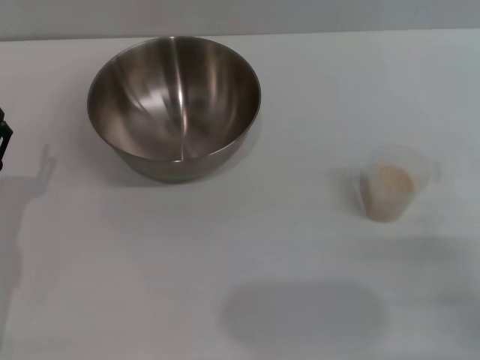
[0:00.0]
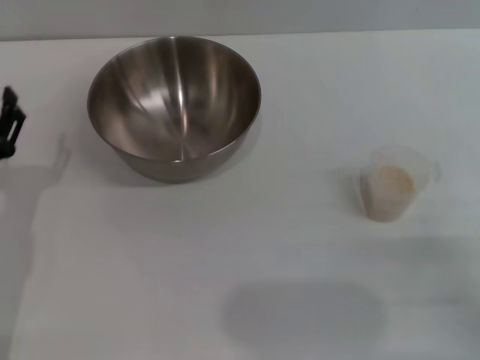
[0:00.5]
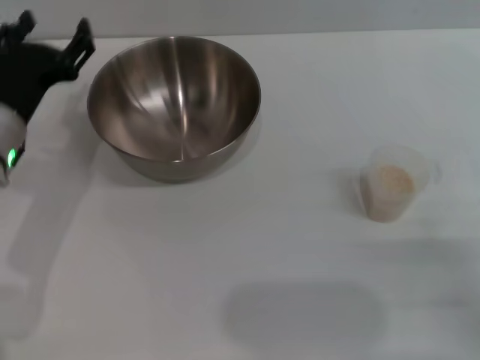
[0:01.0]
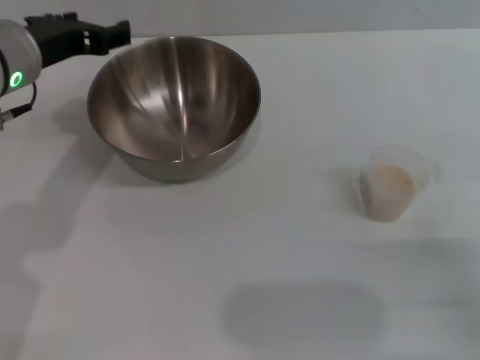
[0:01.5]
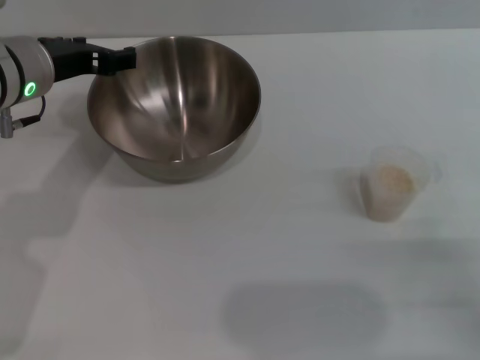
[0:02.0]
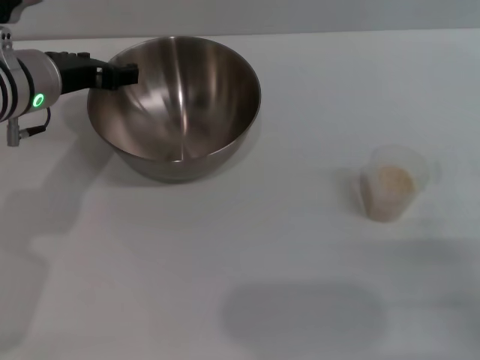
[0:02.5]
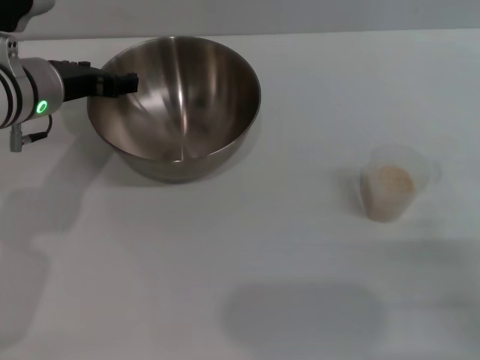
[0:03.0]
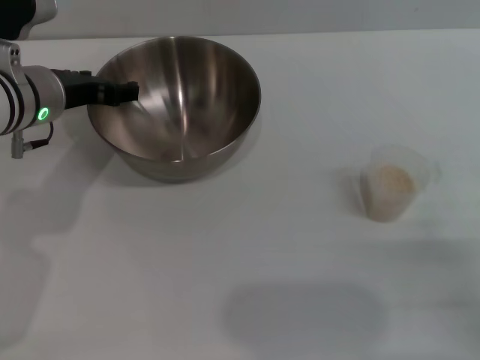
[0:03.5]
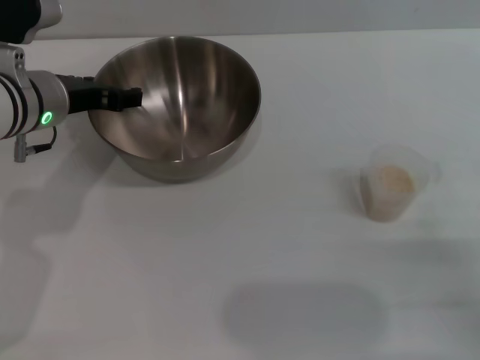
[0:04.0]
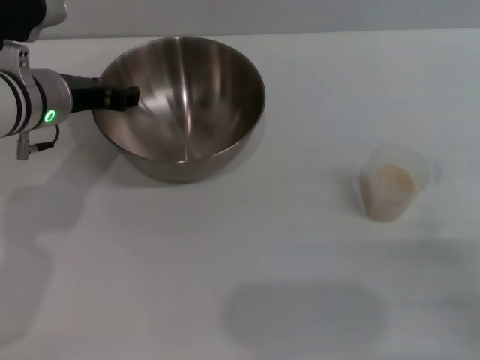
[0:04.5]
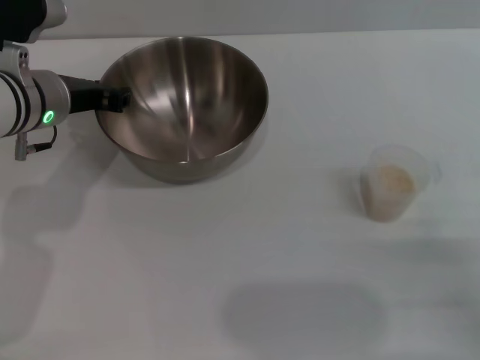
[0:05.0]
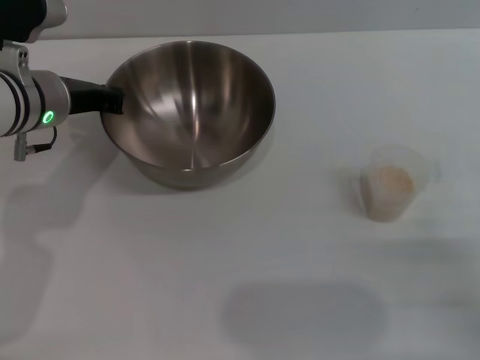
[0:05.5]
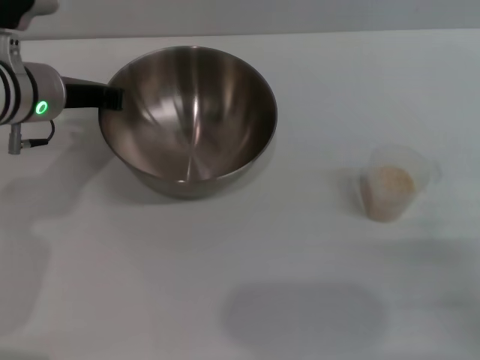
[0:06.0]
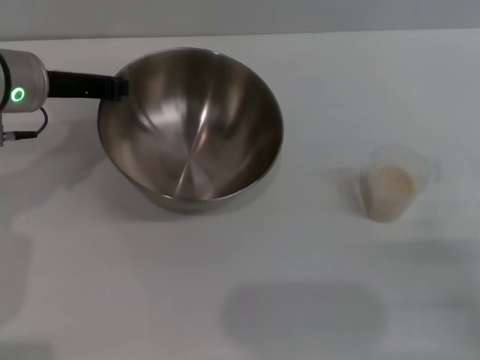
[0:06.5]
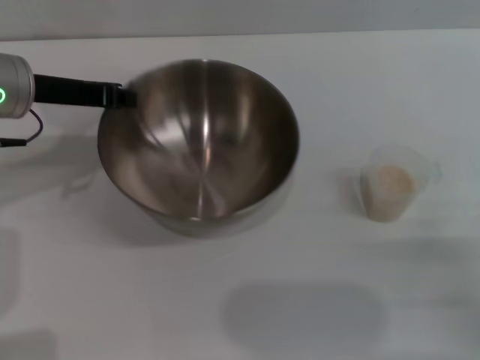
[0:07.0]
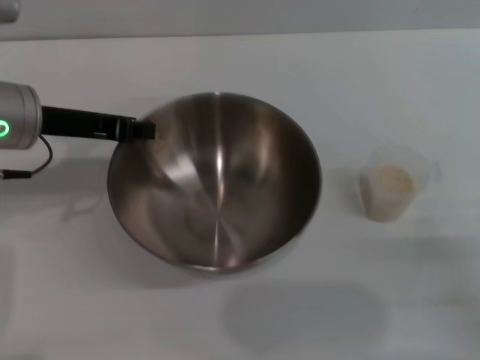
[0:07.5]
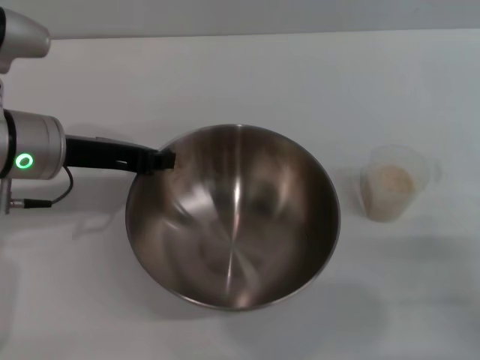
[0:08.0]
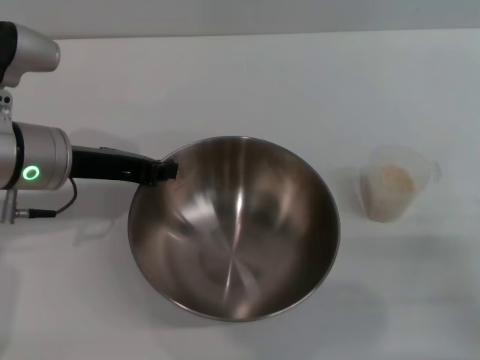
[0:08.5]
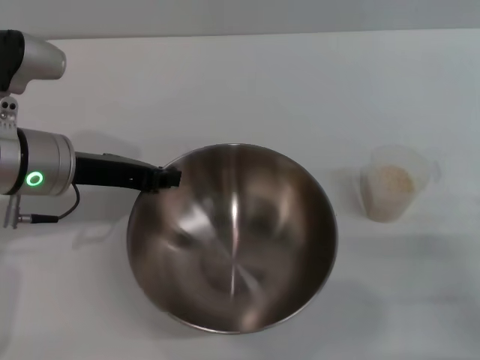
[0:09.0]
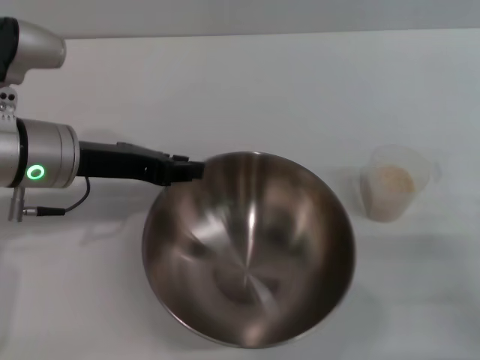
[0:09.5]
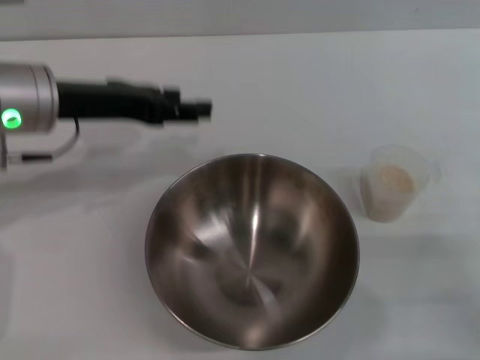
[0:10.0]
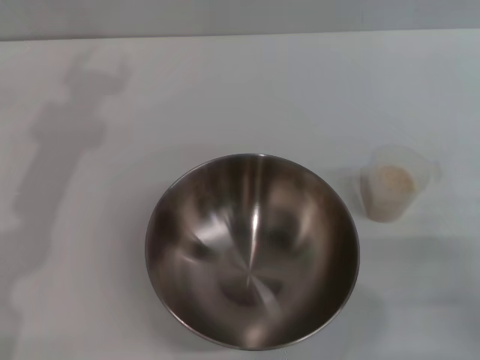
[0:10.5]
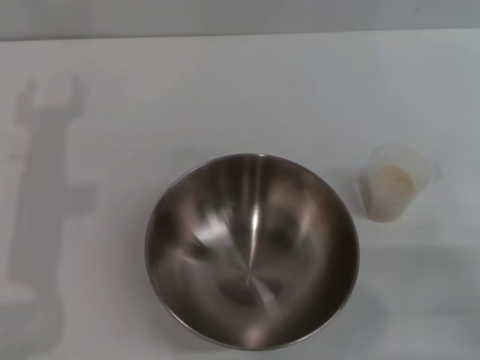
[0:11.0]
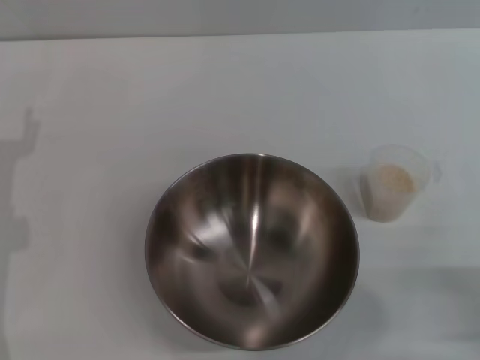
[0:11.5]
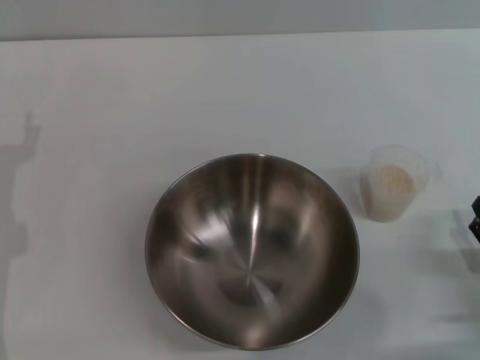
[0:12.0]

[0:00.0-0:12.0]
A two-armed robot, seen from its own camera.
Task of the whole recording: Place the bowl in the middle of the table with one hand and pour the rice from the grain cup into it with the other hand.
Step, 0.0 to 6.5 s: Pick up the bowl with the left gripper.
Step, 7.5 to 9.5 s: Place the bowl in the center of view with the left gripper.
0.0 to 2.0 s: The left gripper moves upward, forward and to the right, approximately 20 cm.
2.0 to 4.0 s: The grippers make only small movements.
4.0 to 6.0 s: The left gripper closes its fingers.
6.0 to 8.0 s: The left gripper is displaced backward by roughly 5 cm.
8.0 to 10.0 s: The left gripper opens up.
10.0 to 12.0 s: The left gripper goes approximately 15 cm downward, to the left and backward, and opens its fingers.

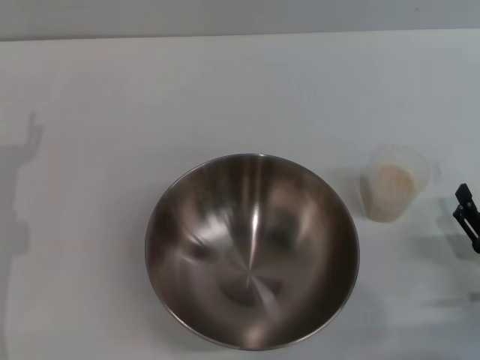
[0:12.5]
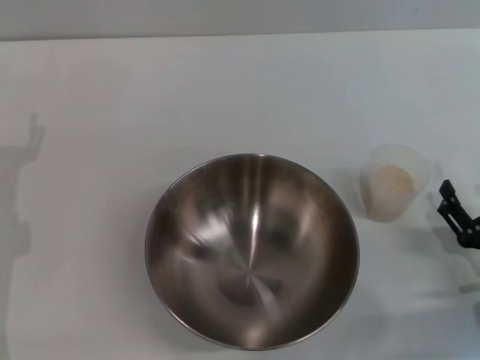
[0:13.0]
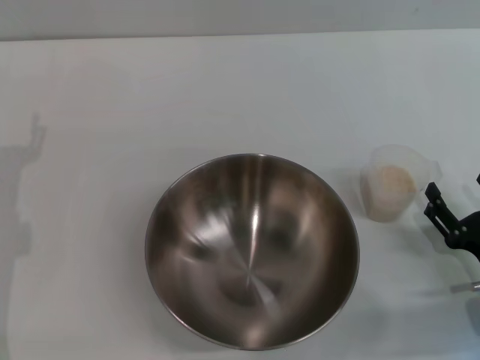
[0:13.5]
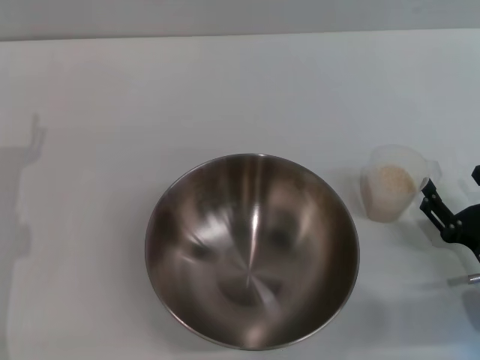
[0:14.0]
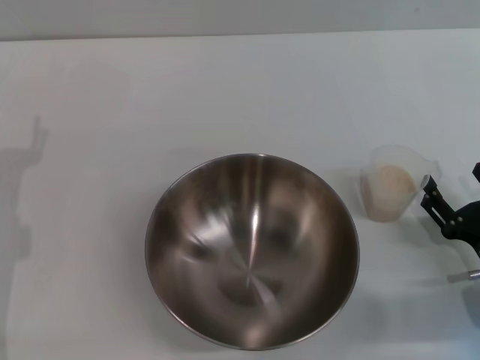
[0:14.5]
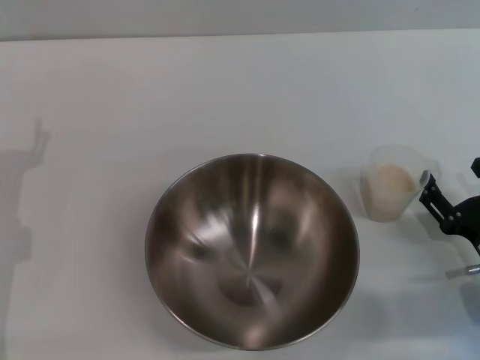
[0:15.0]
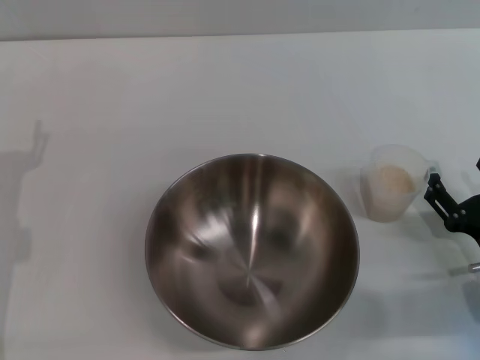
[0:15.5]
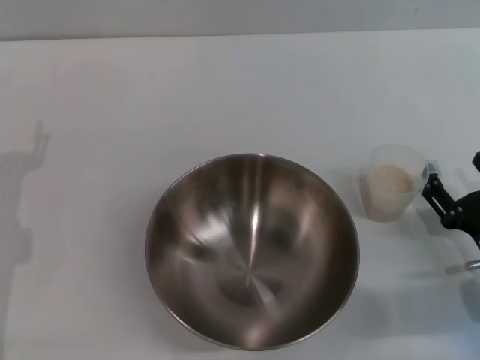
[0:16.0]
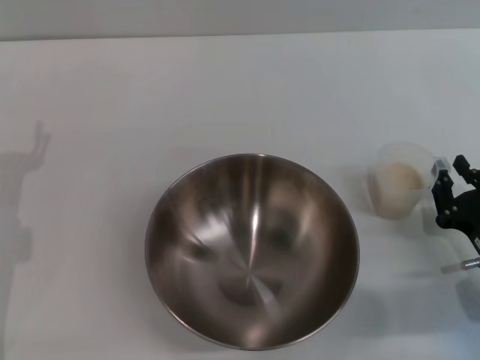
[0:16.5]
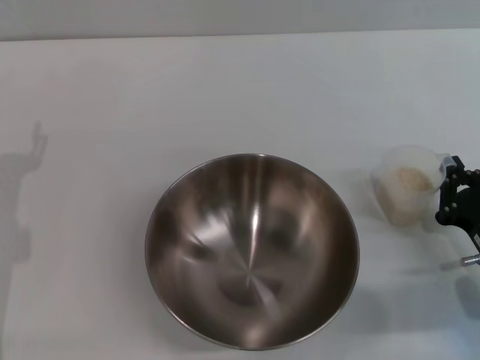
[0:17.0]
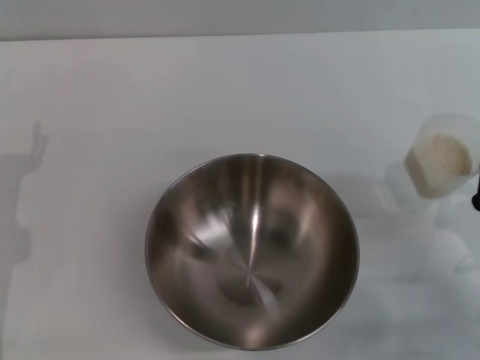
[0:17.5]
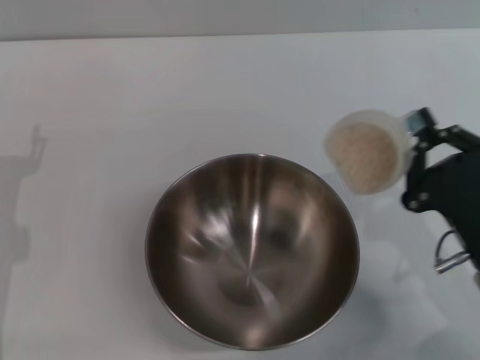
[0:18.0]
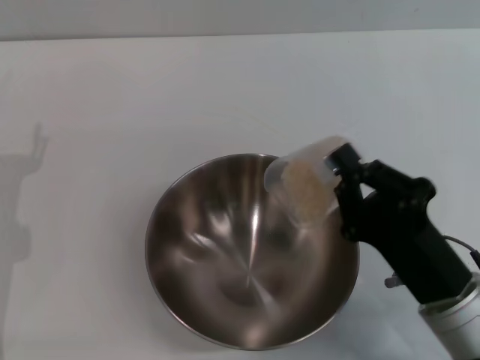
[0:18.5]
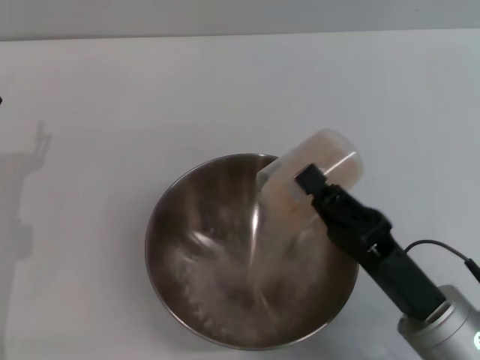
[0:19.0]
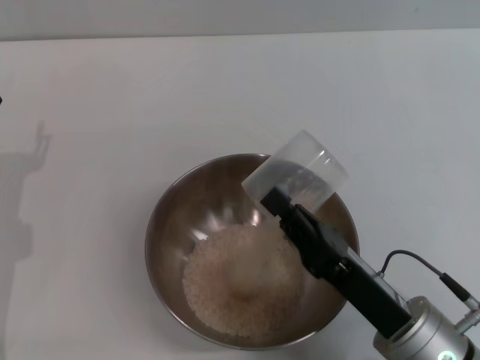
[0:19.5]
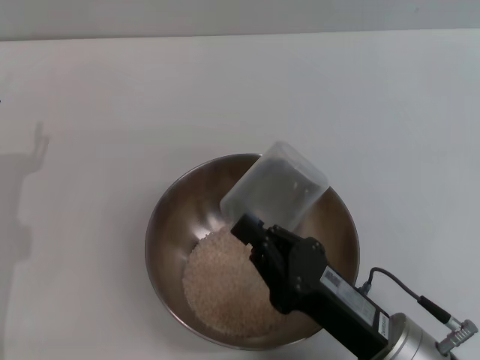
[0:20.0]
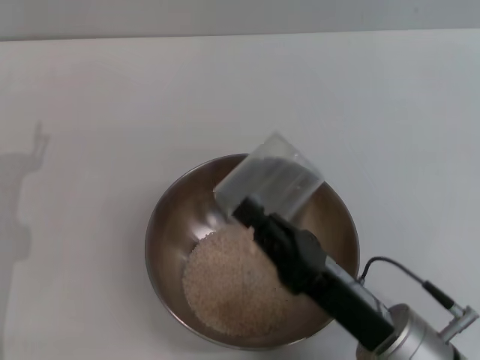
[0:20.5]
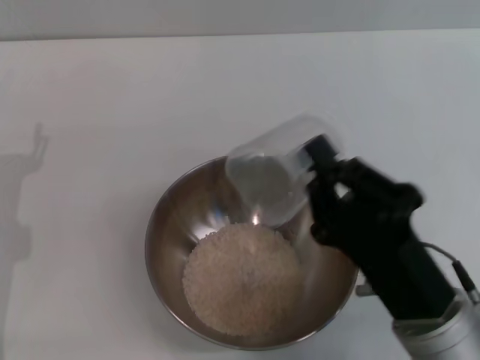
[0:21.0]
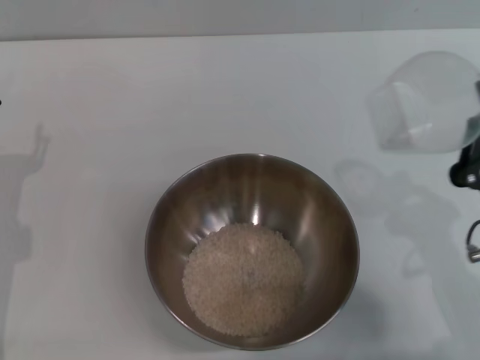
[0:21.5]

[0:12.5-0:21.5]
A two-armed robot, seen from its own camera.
Task of the whole recording: Place the bowl in the middle of the table with one hand and pour the rice from the grain cup into it with the other hand.
Step, 12.5 to 17.5 s: Pick up the cup with rice in it with the right gripper.
Step, 18.0 to 20.0 s: Pour the rice from the cup into the bowl with the right gripper.
12.5 to 14.5 s: The grippers stay close to where they were, moving slightly.
14.5 to 17.0 s: The right gripper closes up.
17.0 to 19.5 s: The right gripper moves to the left, approximately 15 cm.
19.5 to 21.5 s: The right gripper moves to the right, some 5 cm.

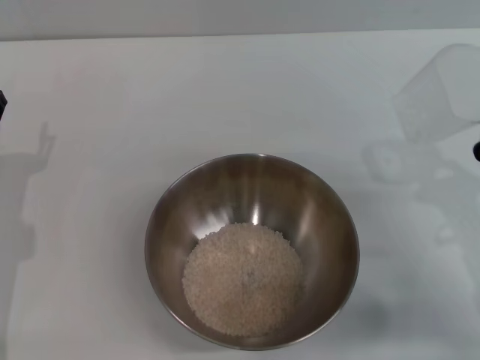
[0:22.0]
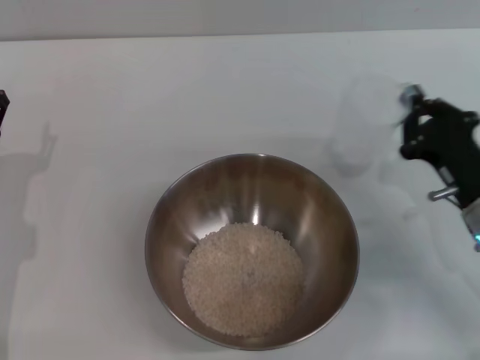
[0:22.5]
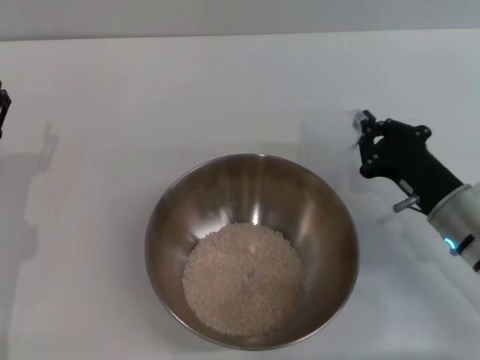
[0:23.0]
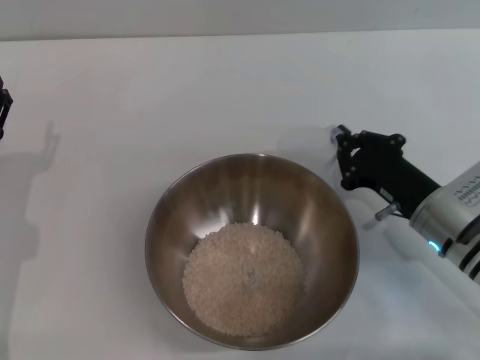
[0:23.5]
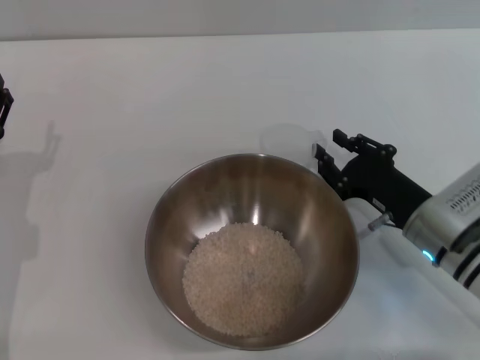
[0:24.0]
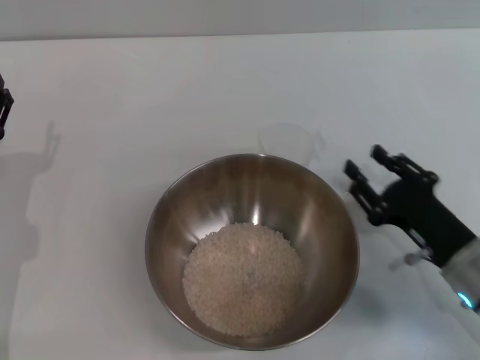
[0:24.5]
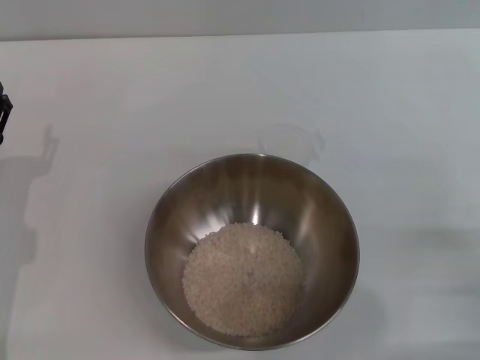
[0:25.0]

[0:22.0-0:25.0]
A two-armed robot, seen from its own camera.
Task of the whole recording: Place the bowl in the middle of the table with one hand and pour the rice from the grain cup into it with the other hand.
Step, 22.0 to 24.0 s: Place the cup on the table with the right gripper.
22.0 to 23.5 s: The right gripper shifts approximately 10 cm forward.
23.5 to 25.0 s: The right gripper moves backward and to the right, some 15 cm, and opens up.

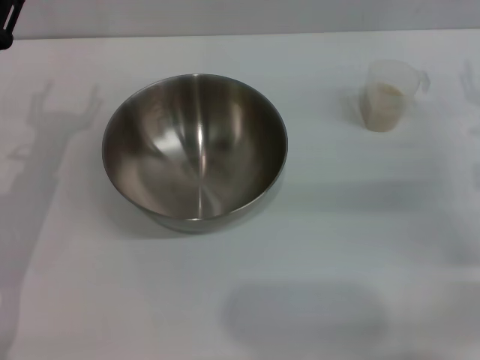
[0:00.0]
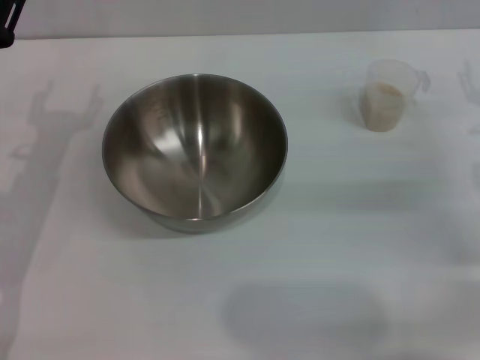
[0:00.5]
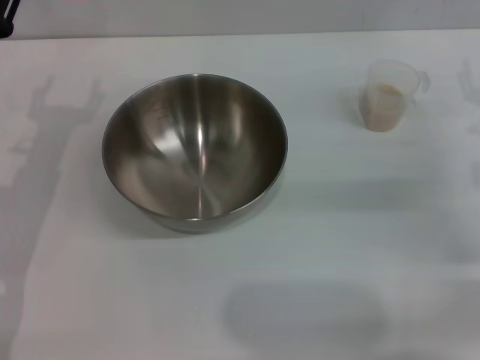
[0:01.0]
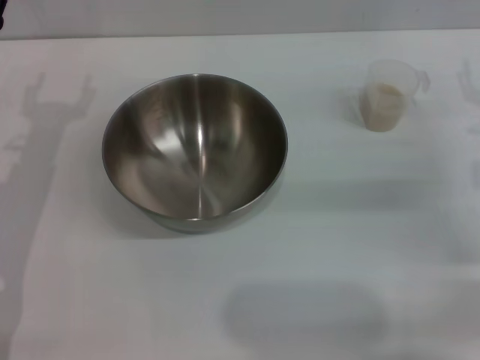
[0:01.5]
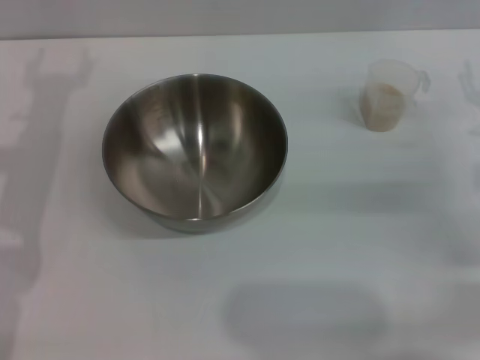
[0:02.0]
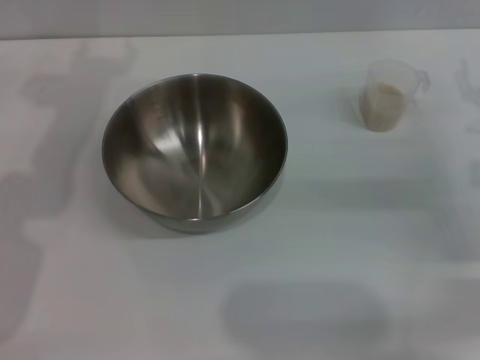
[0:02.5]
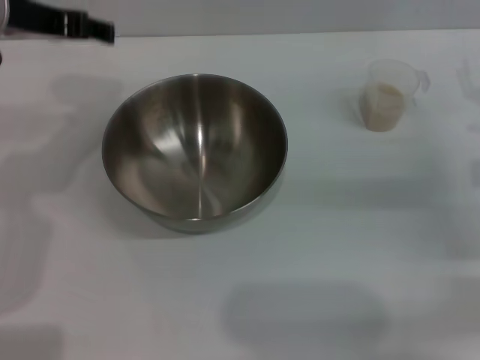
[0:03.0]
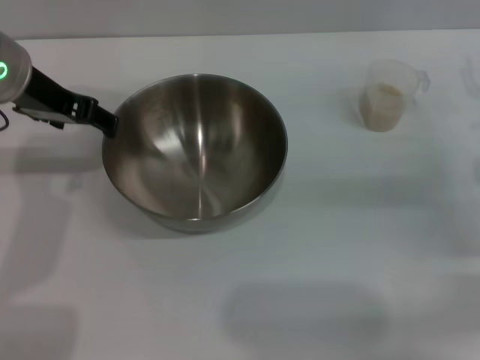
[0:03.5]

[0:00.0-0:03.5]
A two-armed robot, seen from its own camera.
Task of the whole recording: Place the bowl in the middle of the table with one hand and pour the rice from the grain cup into it with the other hand.
2.0 to 3.5 s: The left gripper heads upward and to the right, covering approximately 10 cm.
